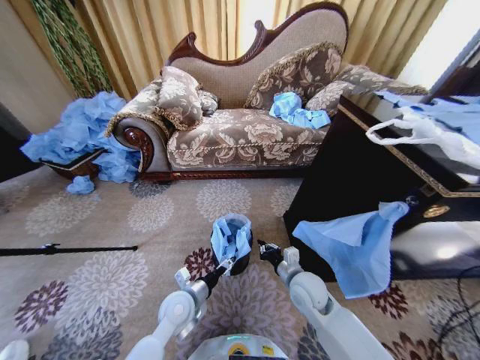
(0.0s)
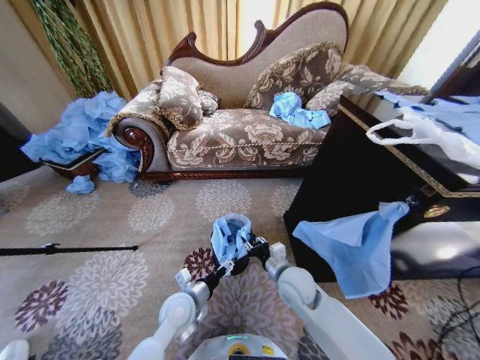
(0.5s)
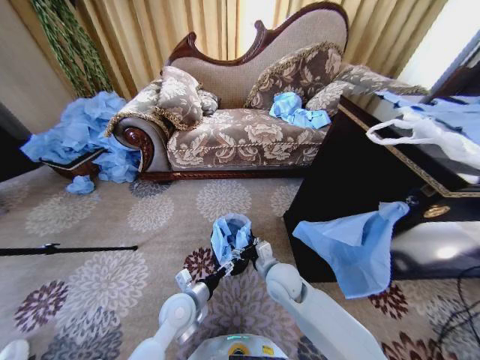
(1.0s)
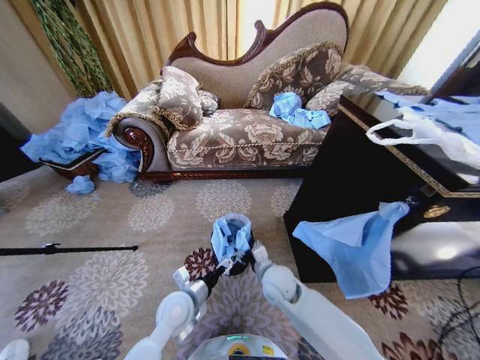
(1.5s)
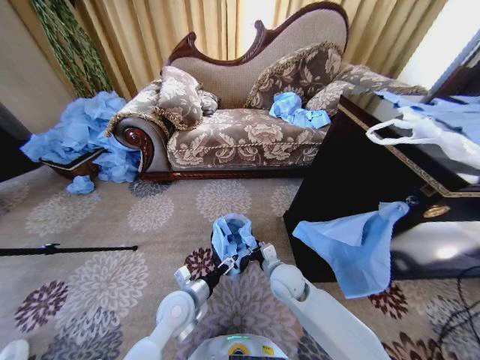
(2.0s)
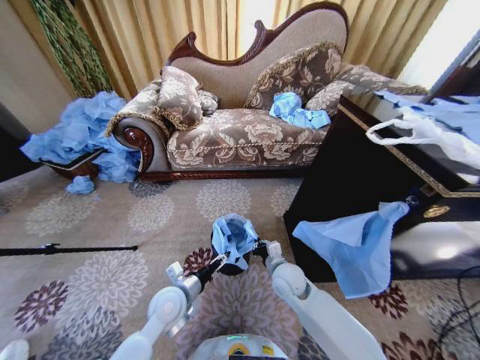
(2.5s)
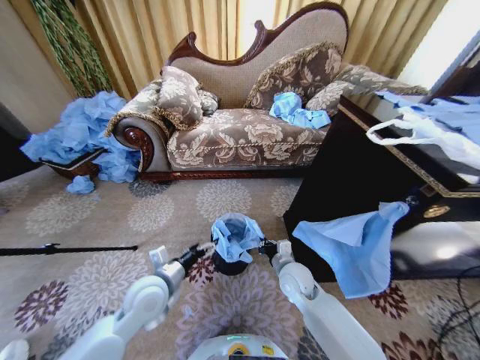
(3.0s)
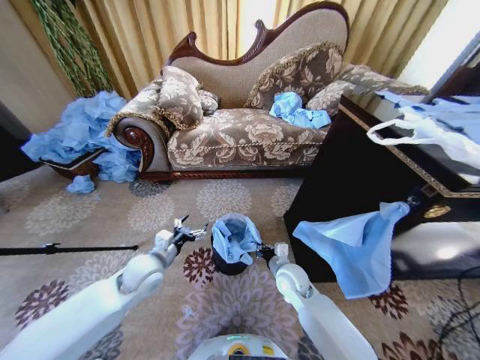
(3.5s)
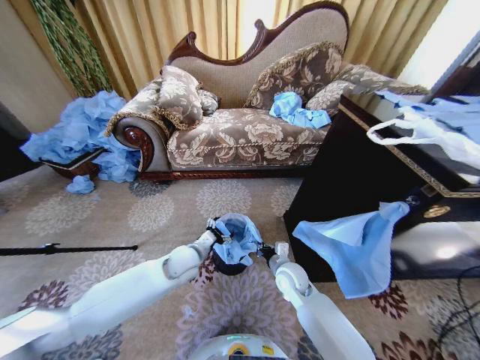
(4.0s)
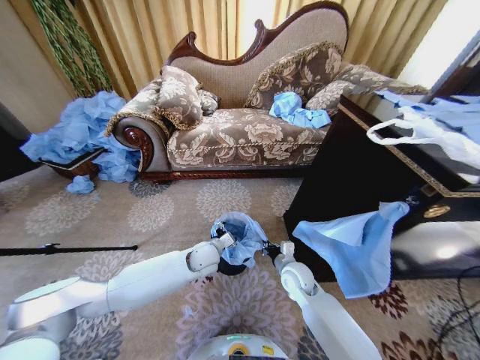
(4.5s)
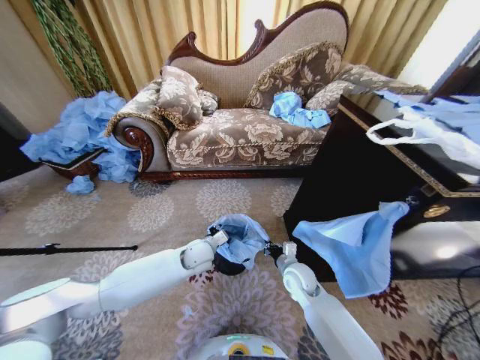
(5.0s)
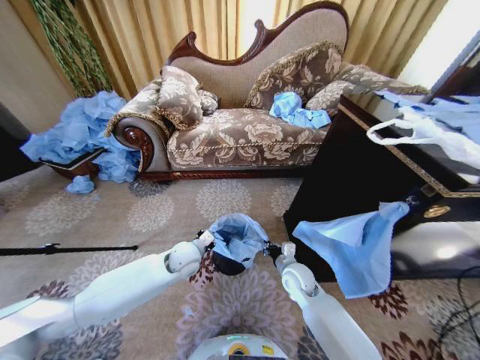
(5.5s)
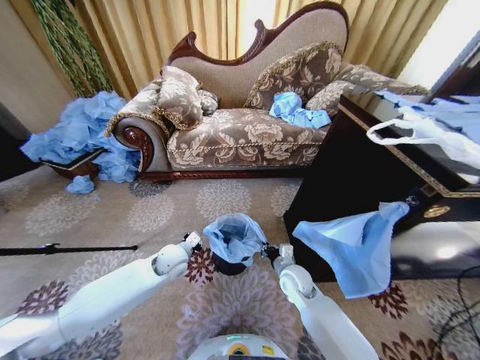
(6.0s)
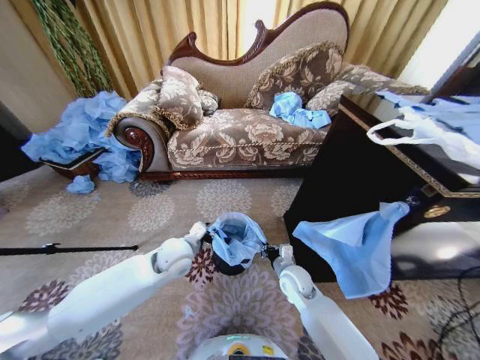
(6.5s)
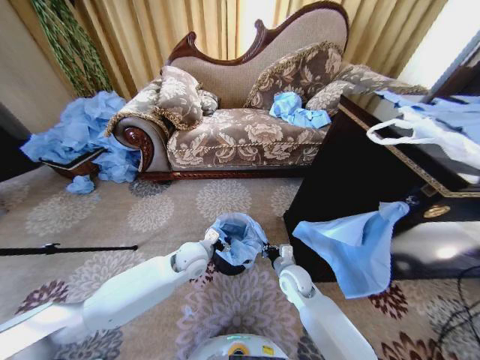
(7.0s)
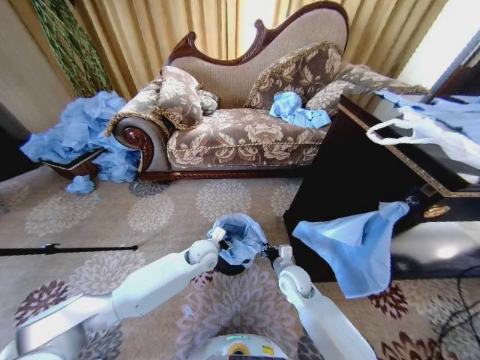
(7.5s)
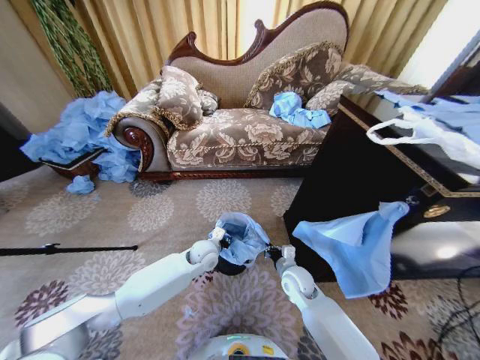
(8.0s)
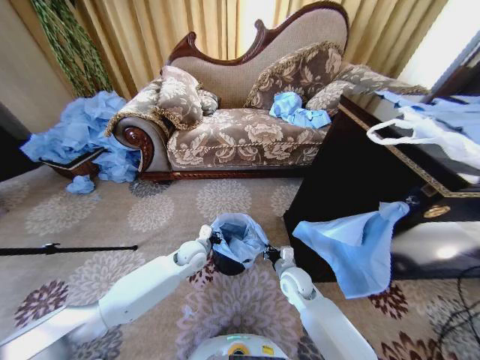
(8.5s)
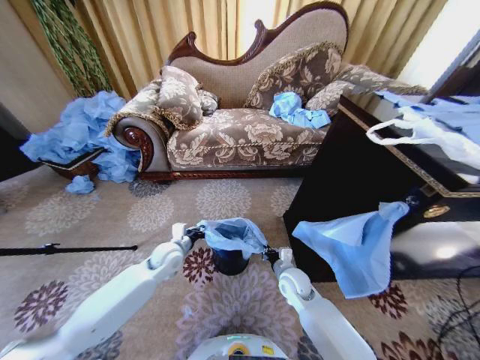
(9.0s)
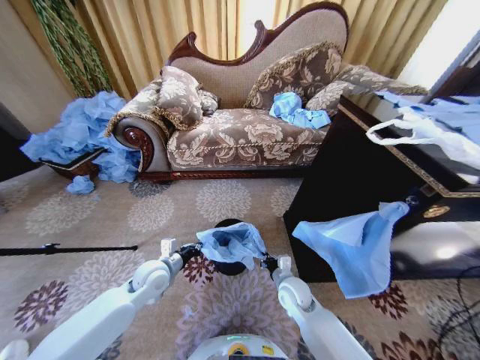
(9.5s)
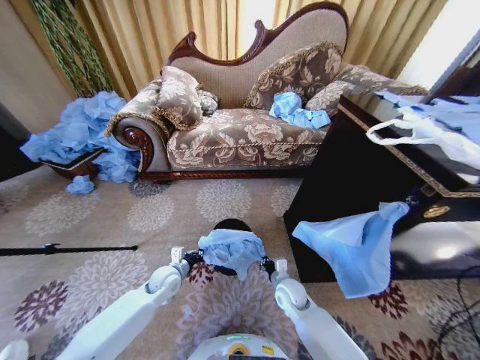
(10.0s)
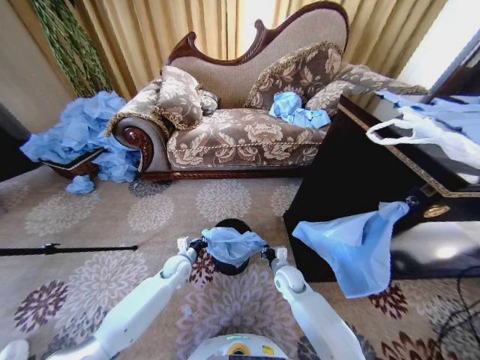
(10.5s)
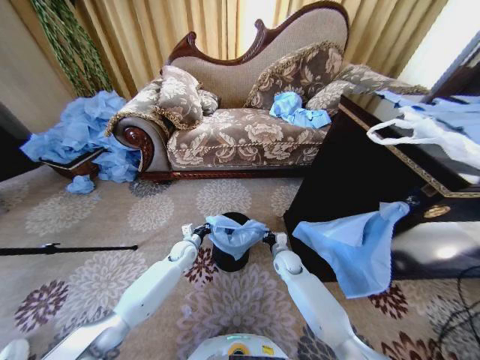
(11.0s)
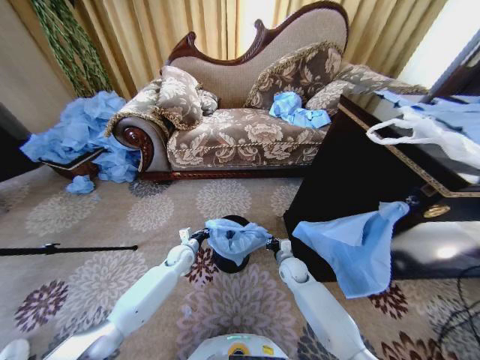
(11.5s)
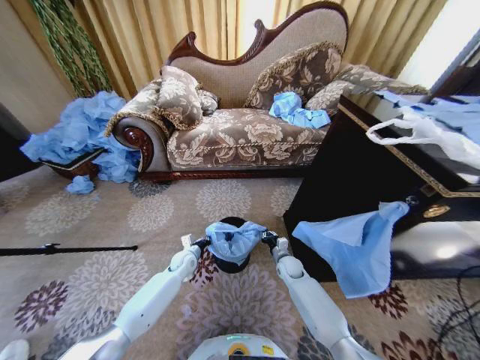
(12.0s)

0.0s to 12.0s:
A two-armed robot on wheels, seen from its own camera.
Task of the whole recording: Place a garbage bag over the trash bin.
0.0s to 2.0s: The right gripper moves to the left, some 5 cm, and opens its fingers.
2.0s to 4.0s: The right gripper closes its fingers. The left gripper travels forward by about 10 cm.
4.0s to 6.0s: The left gripper closes its fingers.
6.0s to 8.0s: The left gripper goes about 10 cm to the right, and opens and closes again.
8.0s to 10.0s: The left gripper heads to the left, backward and downward, covering some 15 cm, while the right gripper shifts some 5 cm downward.
10.0s to 12.0s: Both grippers travel together forward, approximately 10 cm.

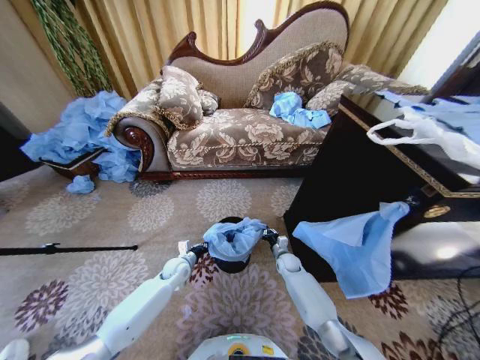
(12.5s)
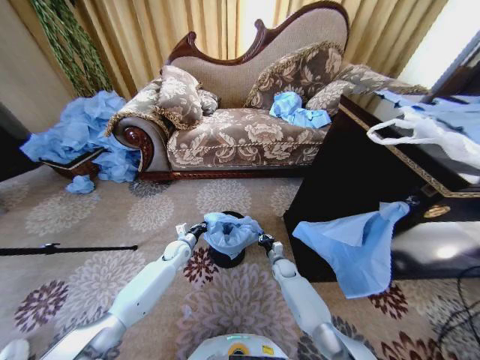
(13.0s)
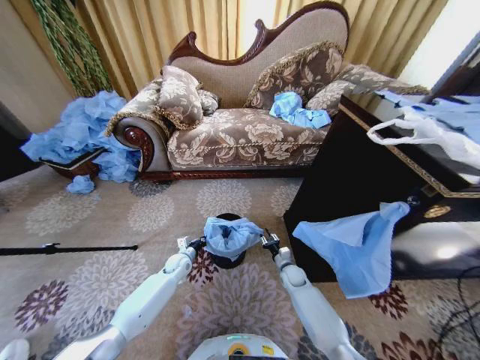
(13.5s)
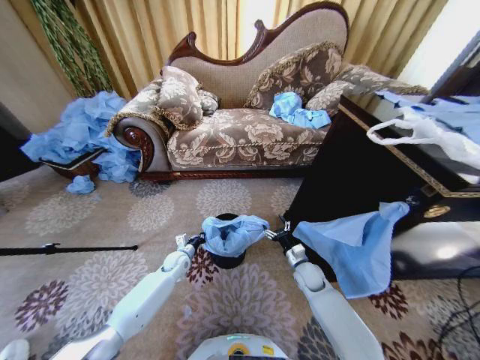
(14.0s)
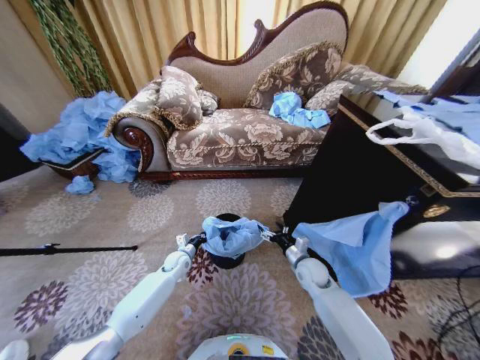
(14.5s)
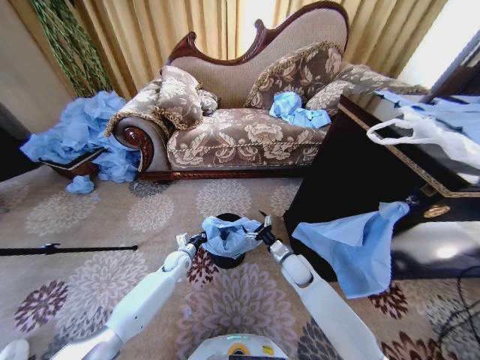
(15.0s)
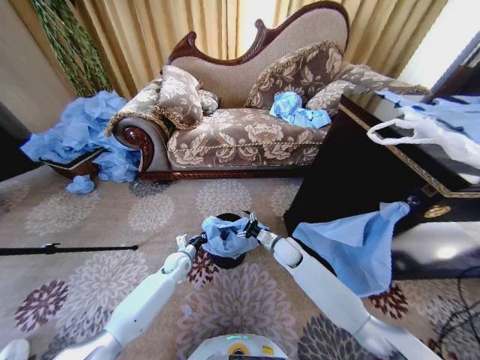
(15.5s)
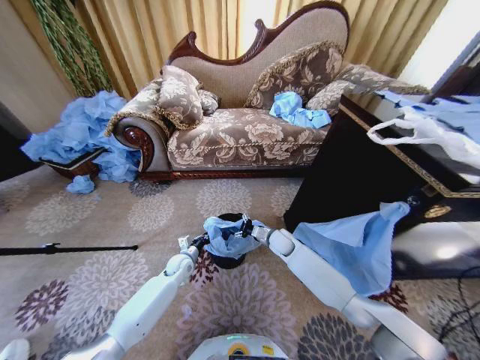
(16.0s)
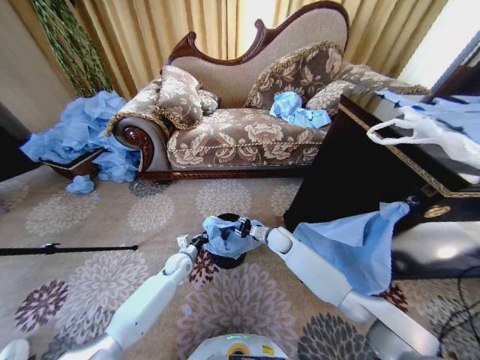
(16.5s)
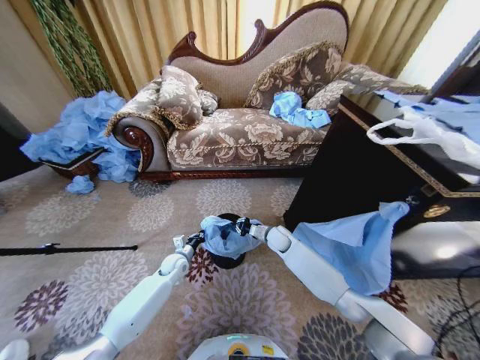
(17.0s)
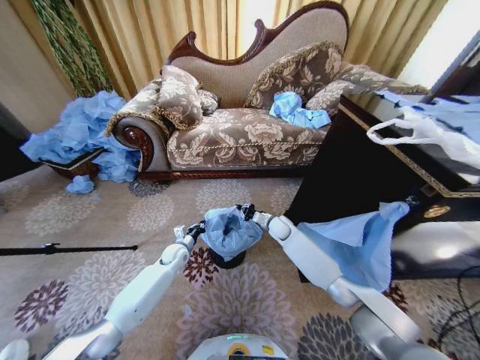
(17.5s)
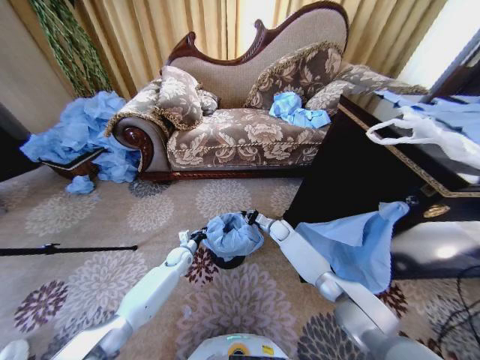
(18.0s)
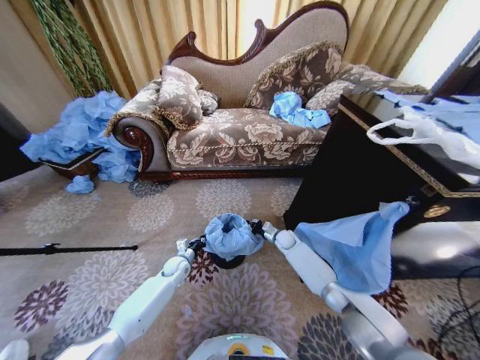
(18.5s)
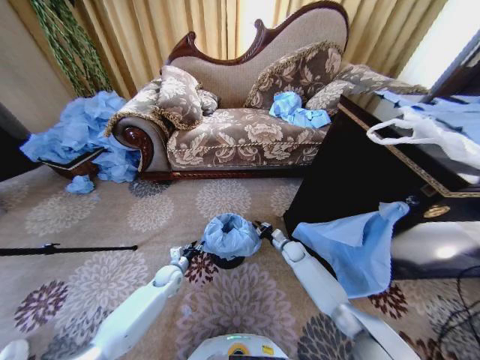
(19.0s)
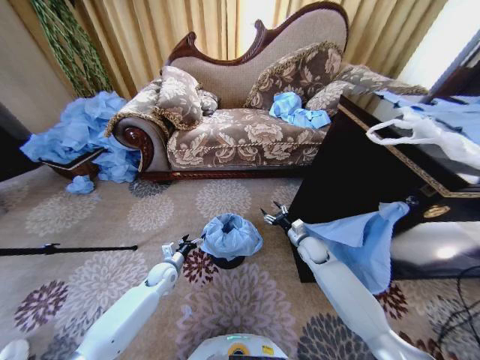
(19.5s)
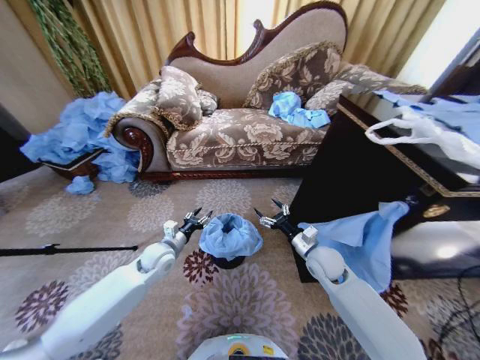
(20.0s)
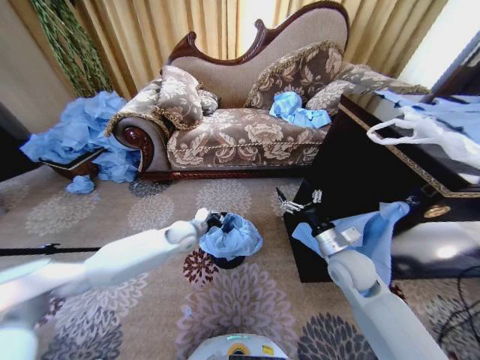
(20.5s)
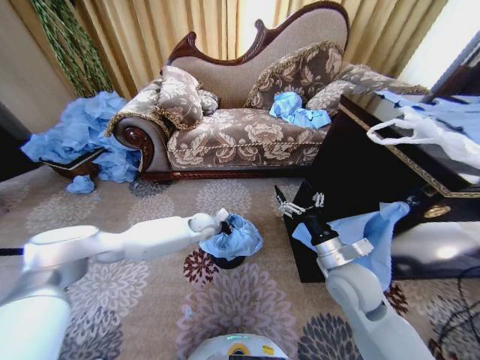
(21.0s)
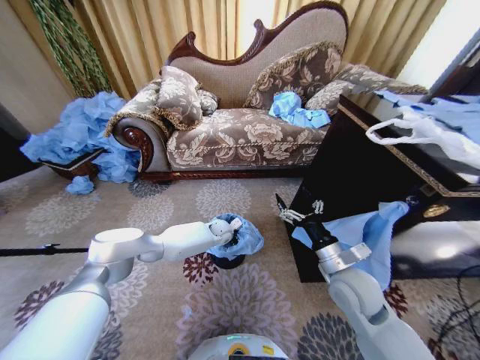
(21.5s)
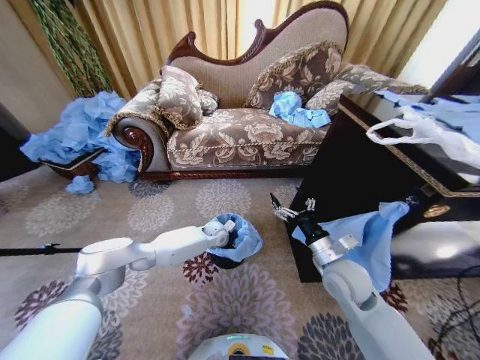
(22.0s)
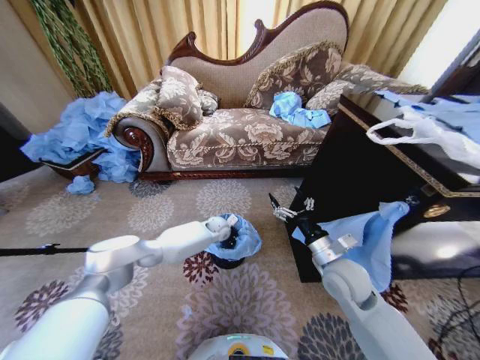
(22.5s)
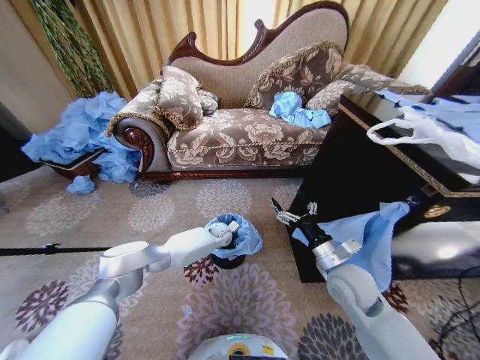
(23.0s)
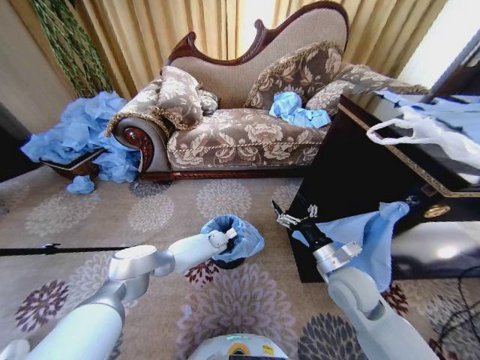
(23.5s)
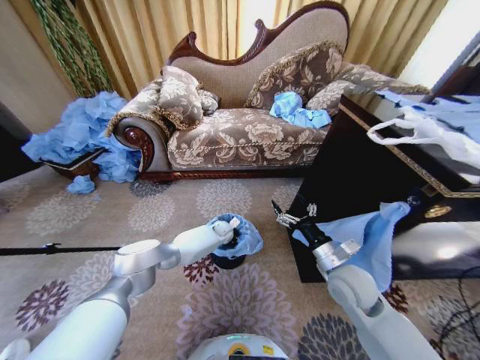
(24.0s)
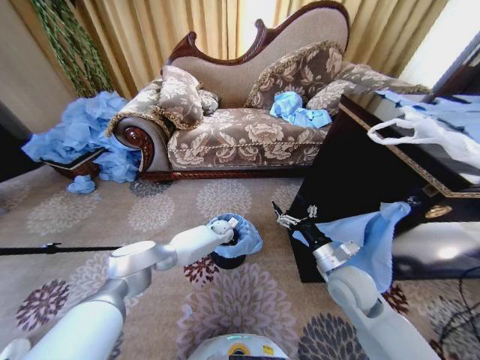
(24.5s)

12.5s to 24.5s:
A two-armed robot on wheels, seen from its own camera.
Task of the whole recording: Place a garbage bag over the trash bin.
12.5s to 14.5s: The right gripper heads upward and backward, covering about 15 cm, and opens.
14.5s to 16.5s: The right gripper goes some 15 cm forward and to the left, and closes.
16.5s to 18.5s: The right gripper moves downward and to the right, about 10 cm, and closes up.
18.5s to 20.5s: The right gripper heads backward and upward, covering approximately 30 cm, and opens its fingers. Meanwhile the left gripper heads upward, covering roughly 20 cm, and opens, then closes again.
20.5s to 22.5s: The left gripper moves to the right, forward and downward, roughly 15 cm.
22.5s to 24.5s: The left gripper opens up.

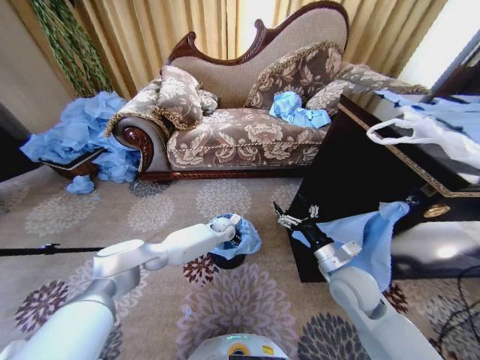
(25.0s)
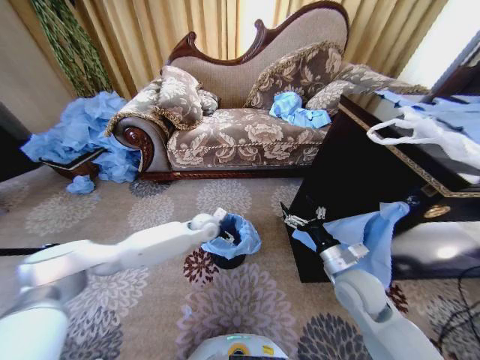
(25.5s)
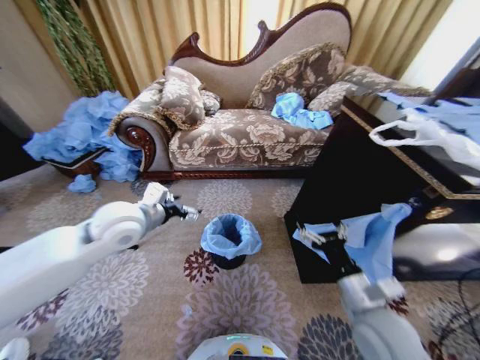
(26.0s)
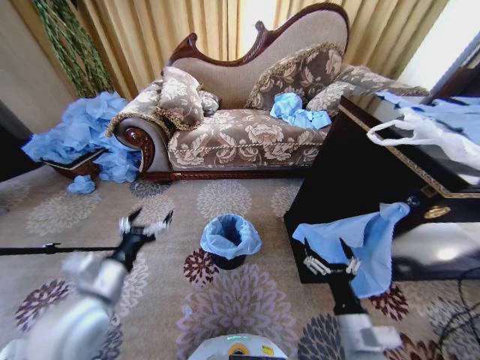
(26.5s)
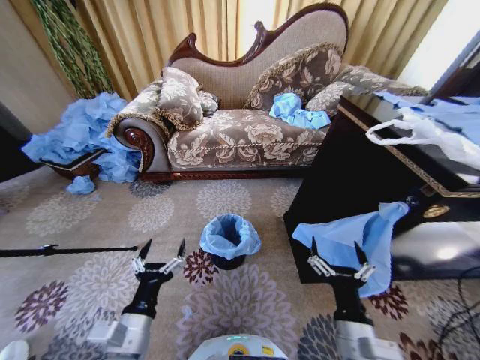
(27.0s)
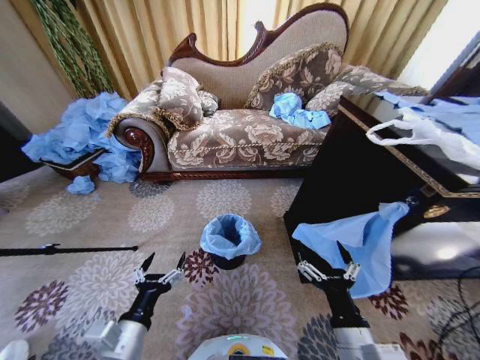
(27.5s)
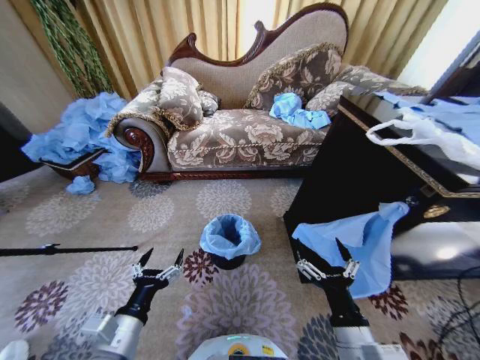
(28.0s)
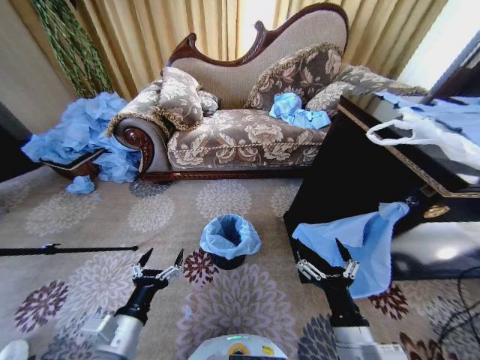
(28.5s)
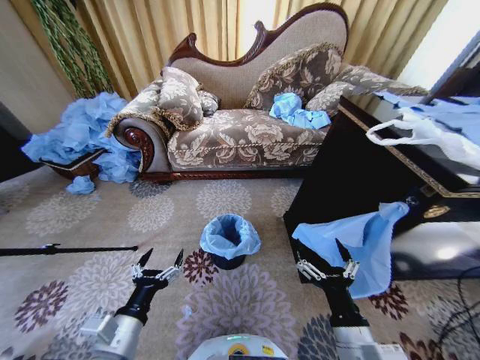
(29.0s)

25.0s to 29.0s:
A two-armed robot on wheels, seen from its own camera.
Task of the whole recording: Place a garbage bag over the trash bin.
25.0s to 27.0s: The right gripper goes about 15 cm backward, while the left gripper is displaced backward by about 40 cm.
27.0s to 29.0s: The grippers stay close to where they were, moving slightly.
